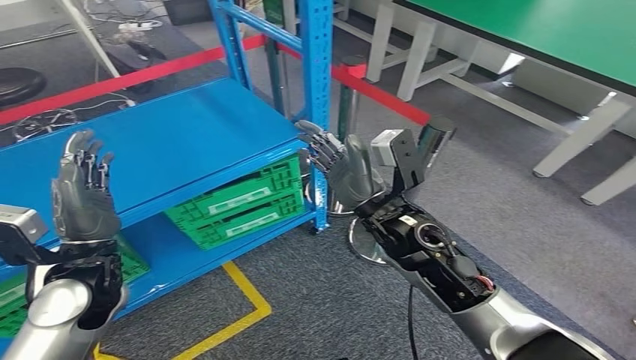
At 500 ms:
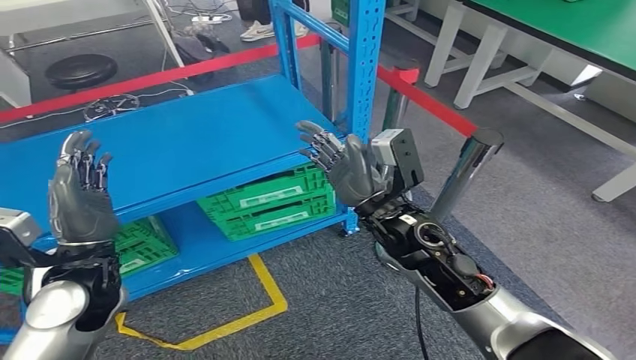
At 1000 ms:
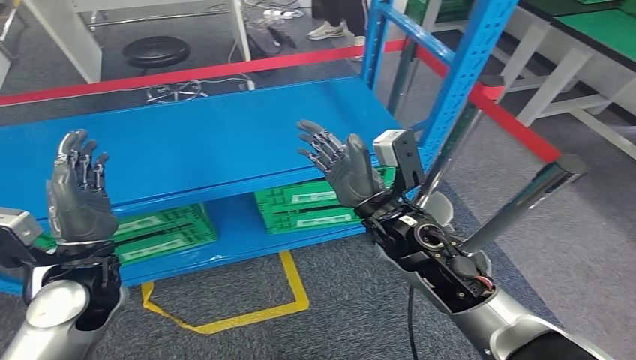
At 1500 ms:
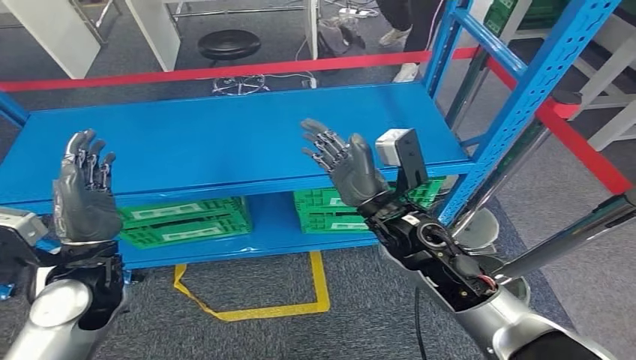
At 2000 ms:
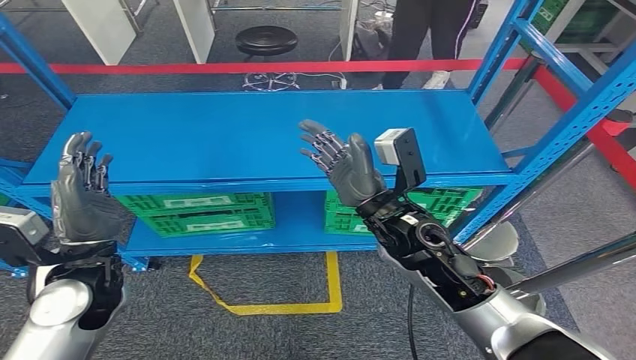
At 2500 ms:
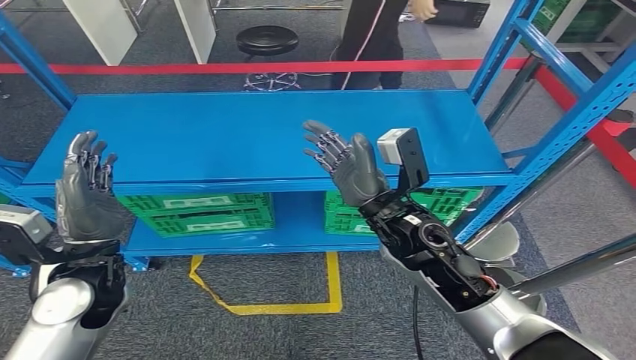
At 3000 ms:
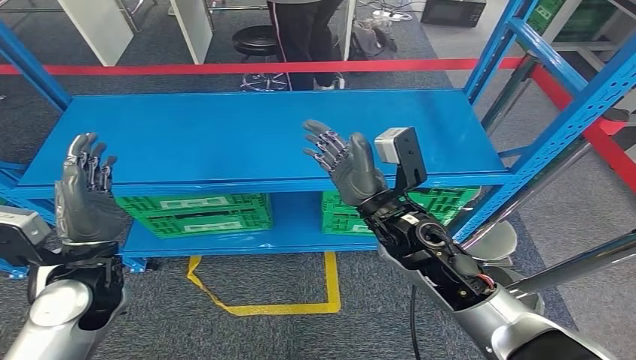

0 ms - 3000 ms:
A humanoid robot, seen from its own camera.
Step, 0 ms - 3000 ms: Move to the initial position of the workbench.
